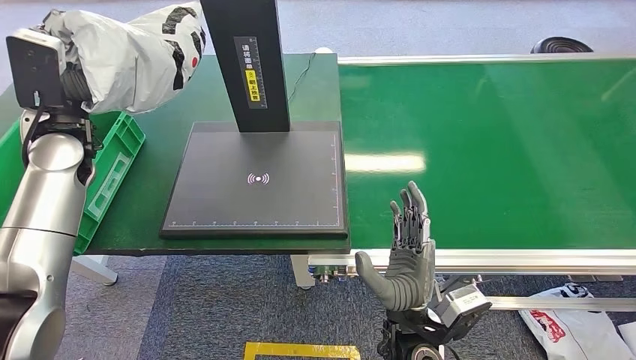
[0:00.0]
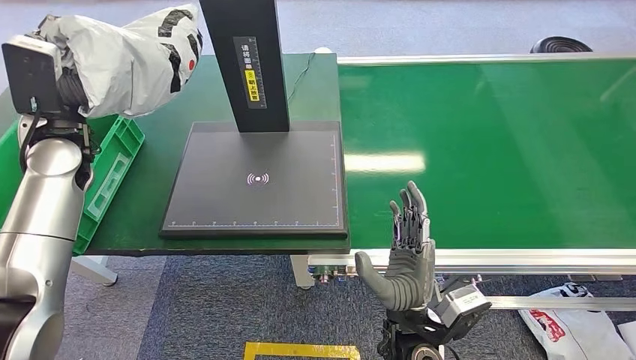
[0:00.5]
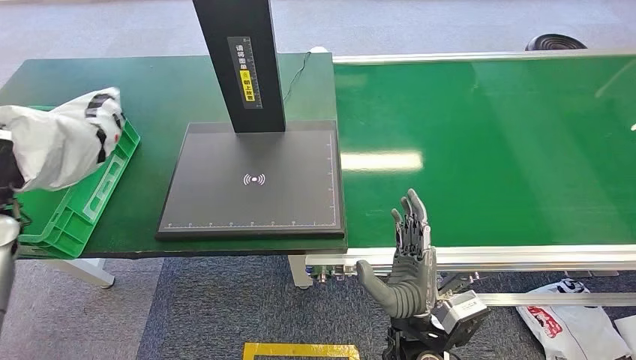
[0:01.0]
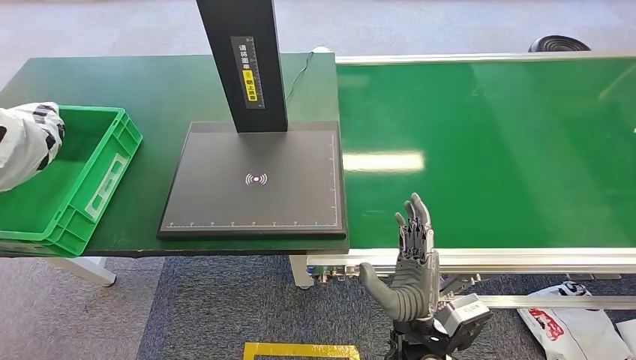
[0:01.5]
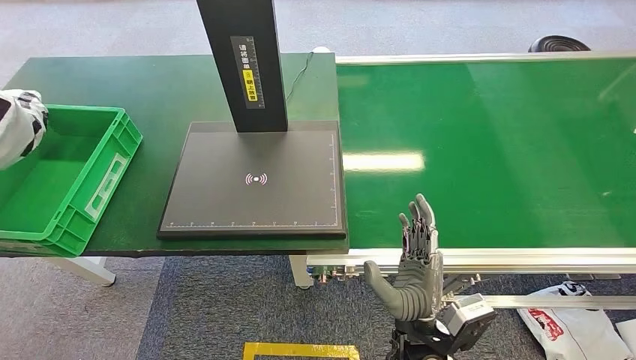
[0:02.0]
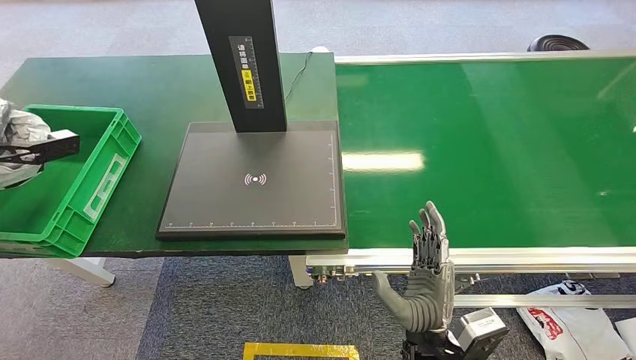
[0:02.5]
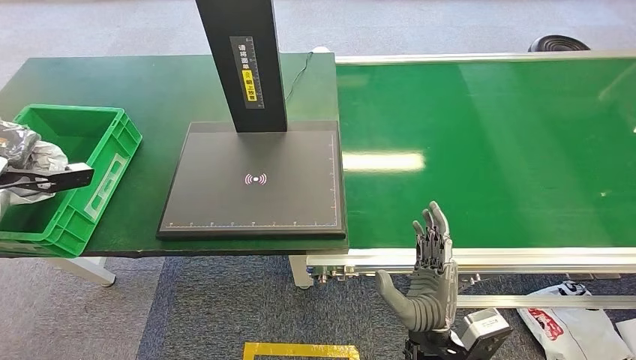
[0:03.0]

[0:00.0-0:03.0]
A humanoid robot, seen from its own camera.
Step, 0:00.0 to 0:03.0: Place the package into the parcel locker.
